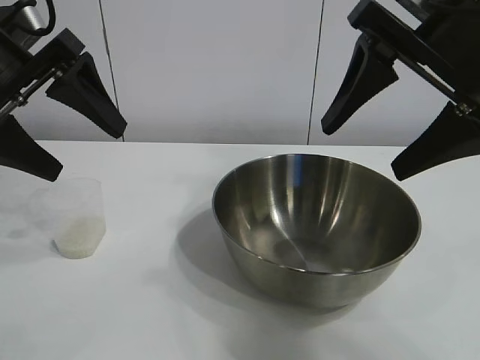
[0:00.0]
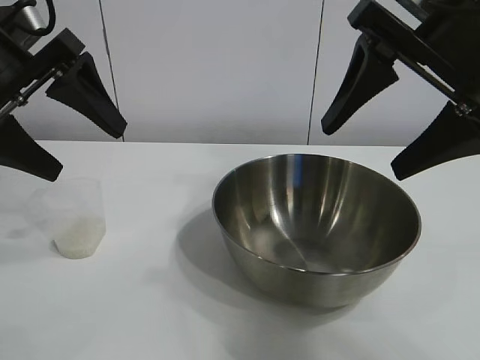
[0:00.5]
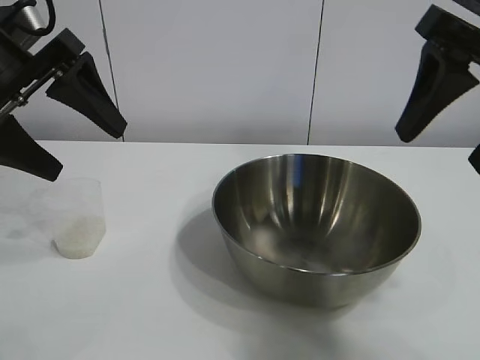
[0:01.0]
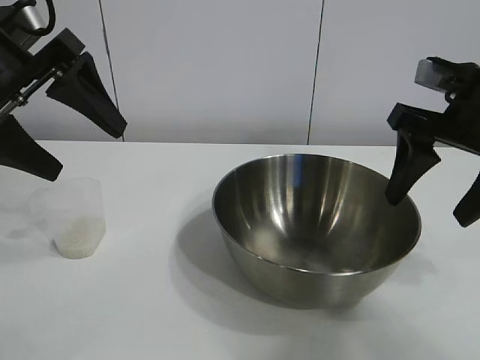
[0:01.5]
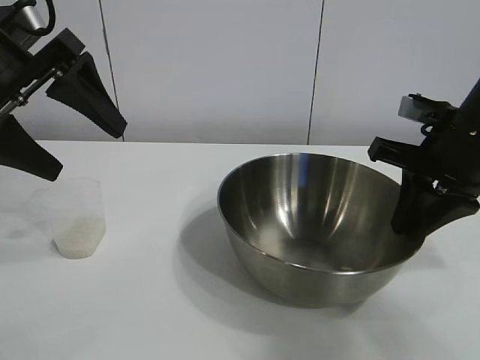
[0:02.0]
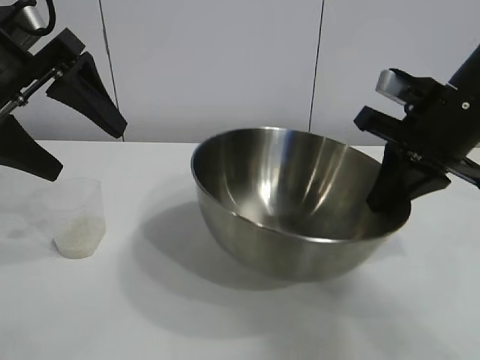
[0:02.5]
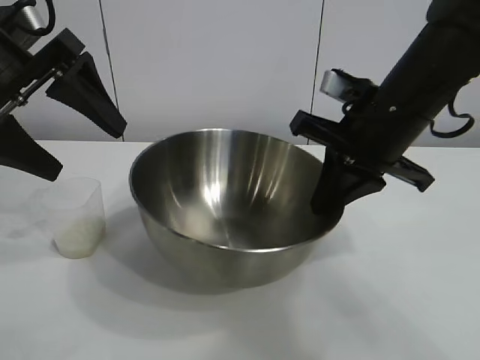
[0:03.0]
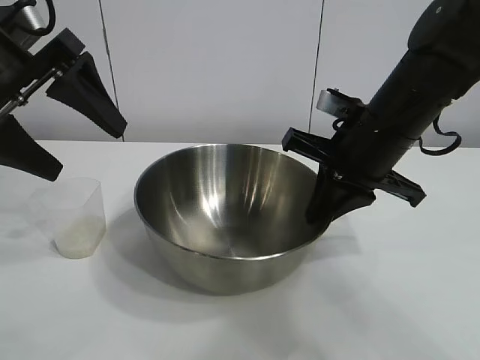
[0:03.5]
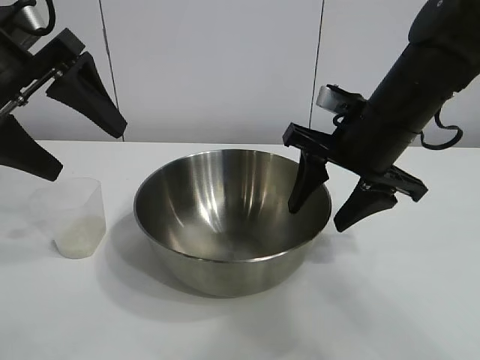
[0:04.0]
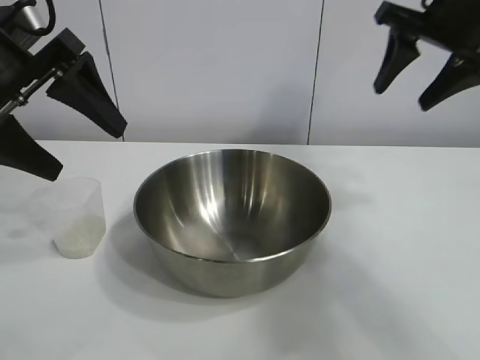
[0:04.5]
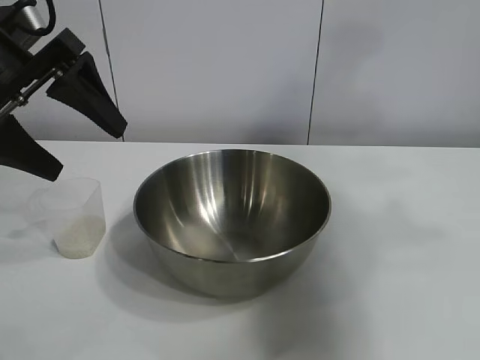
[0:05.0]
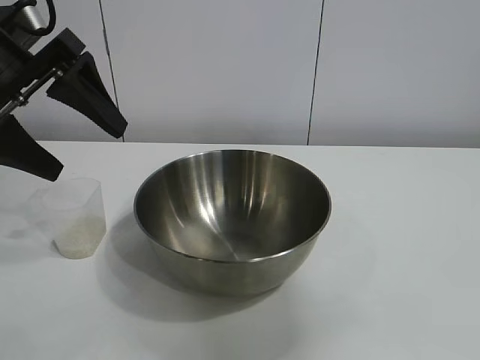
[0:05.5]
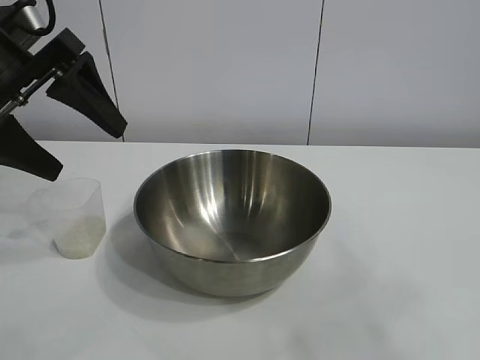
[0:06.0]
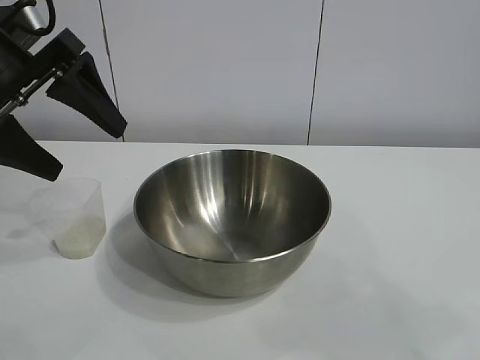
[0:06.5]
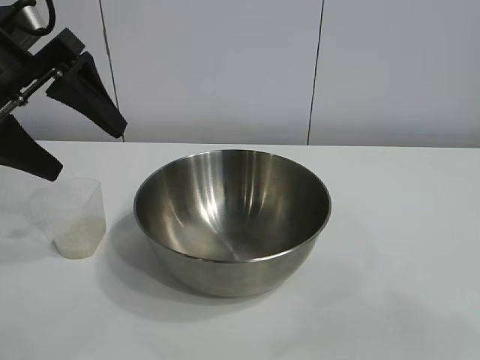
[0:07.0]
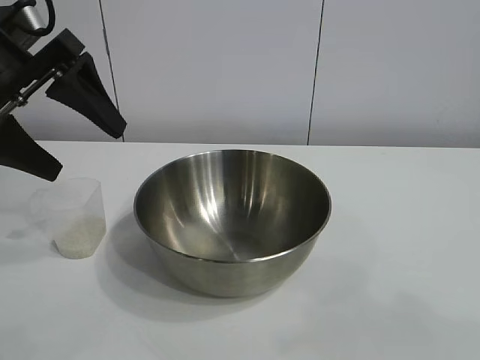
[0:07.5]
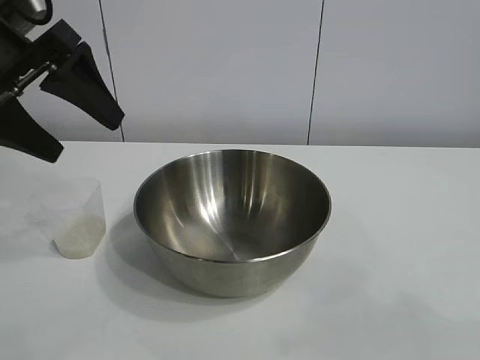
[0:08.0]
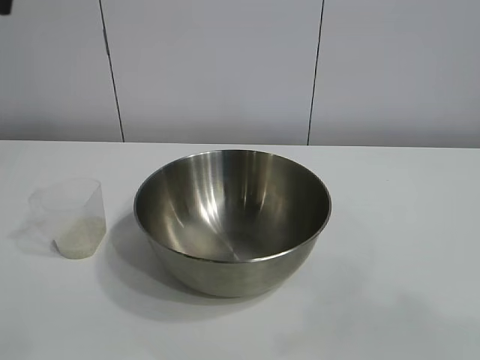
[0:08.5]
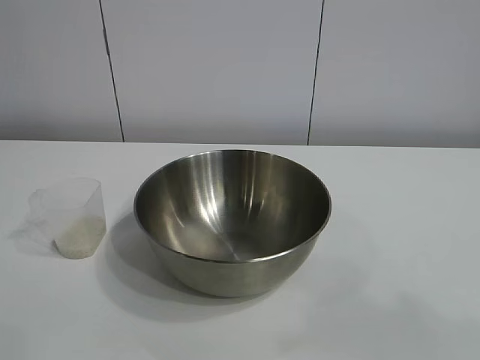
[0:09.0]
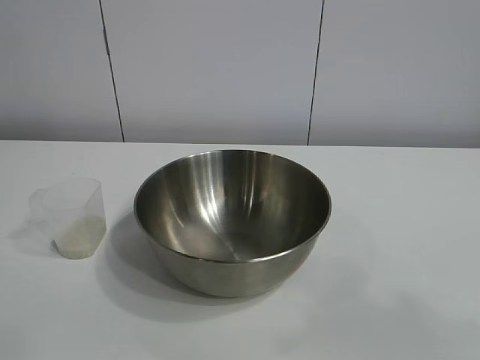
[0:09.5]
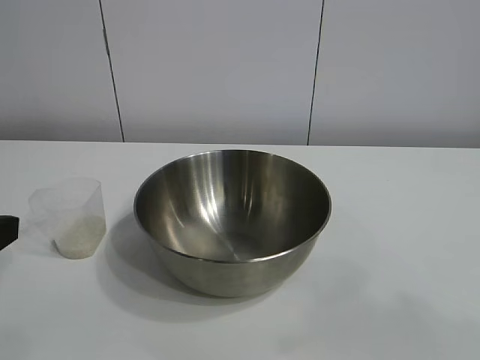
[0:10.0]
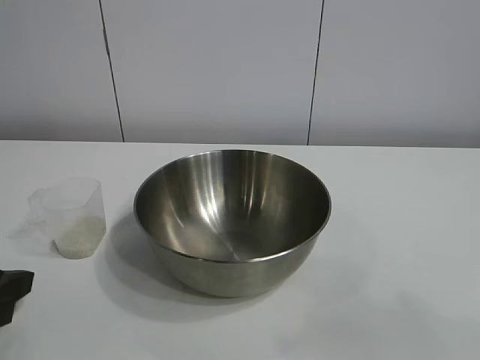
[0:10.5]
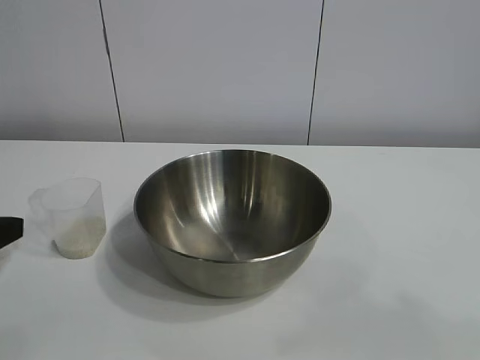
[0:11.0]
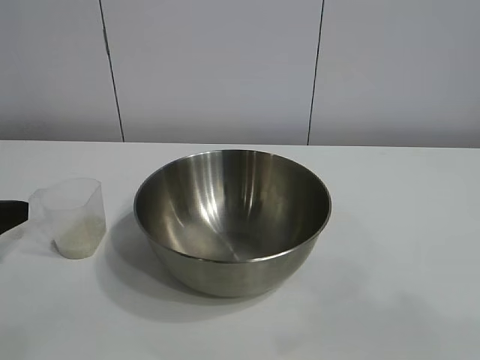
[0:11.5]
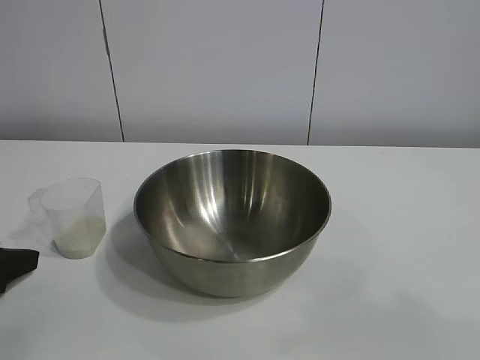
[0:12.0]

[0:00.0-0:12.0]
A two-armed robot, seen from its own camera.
Task of the whole recording: the right gripper grasp the rice container and place it in the center of the table, the left gripper grasp the rice scoop and pour the rice into the rice container.
Step, 0:01.0 to 0:03.5: Move the bowl in the center of view with right gripper.

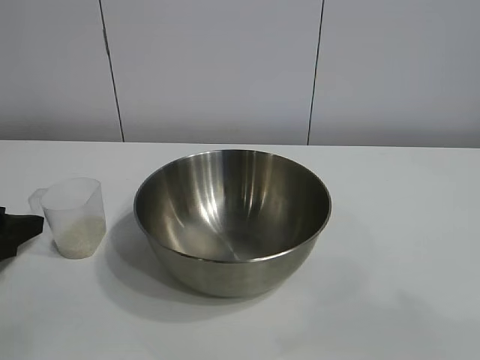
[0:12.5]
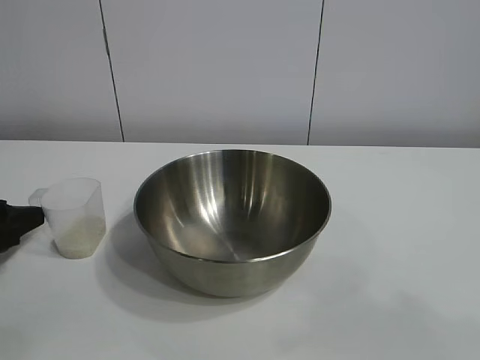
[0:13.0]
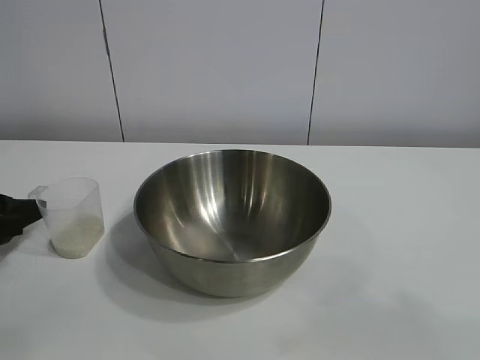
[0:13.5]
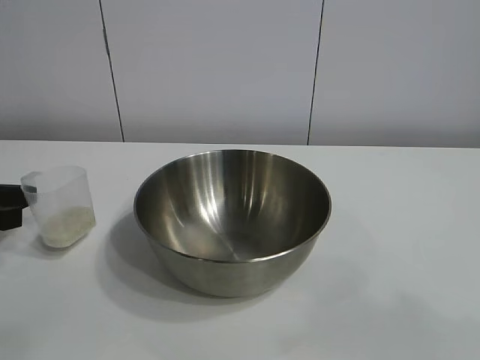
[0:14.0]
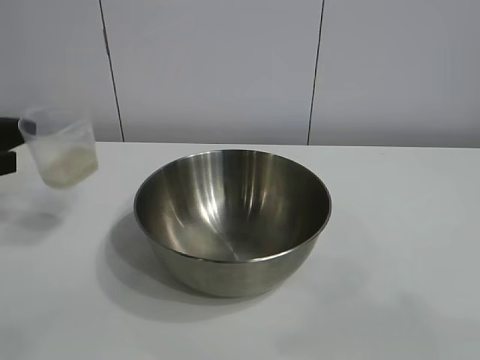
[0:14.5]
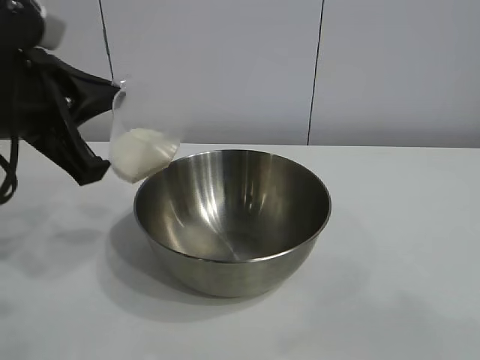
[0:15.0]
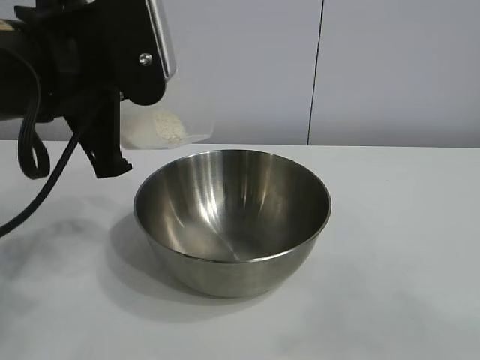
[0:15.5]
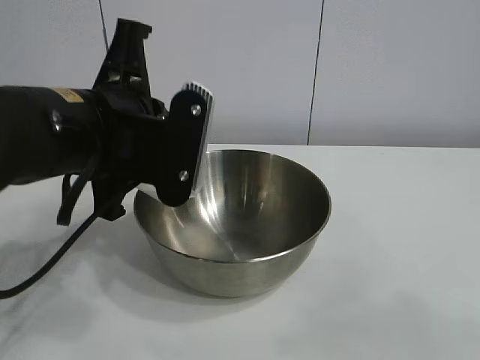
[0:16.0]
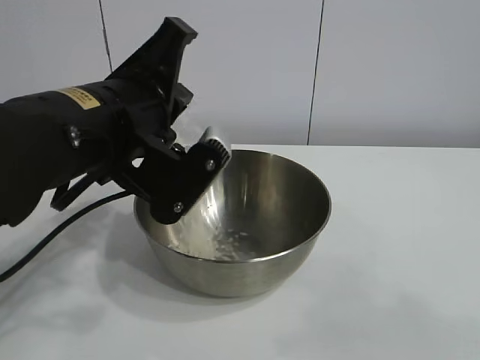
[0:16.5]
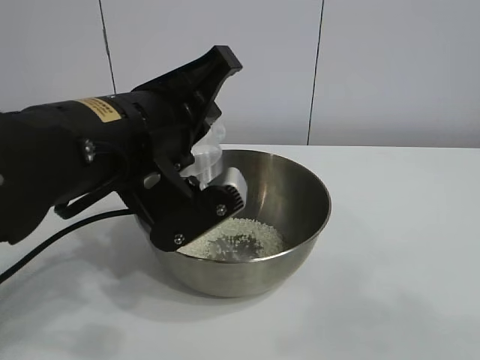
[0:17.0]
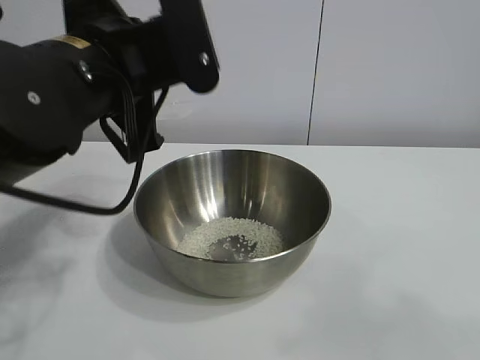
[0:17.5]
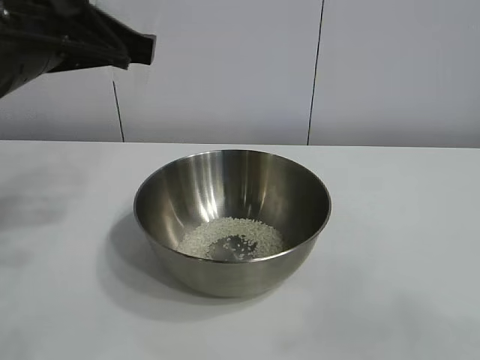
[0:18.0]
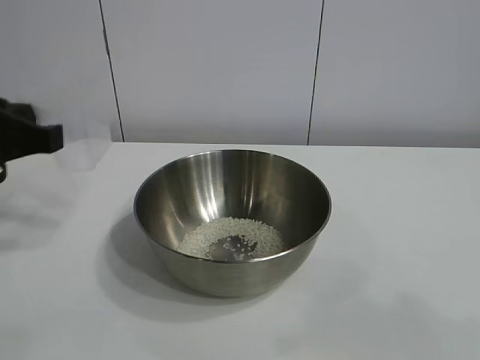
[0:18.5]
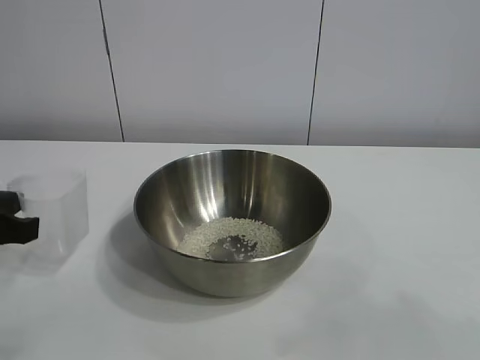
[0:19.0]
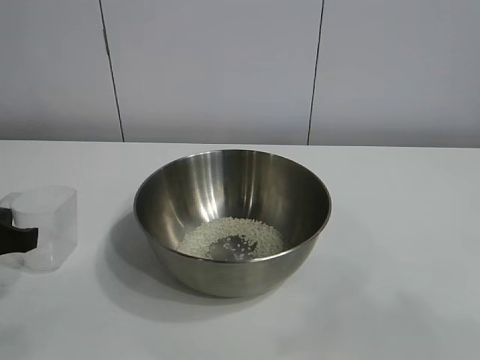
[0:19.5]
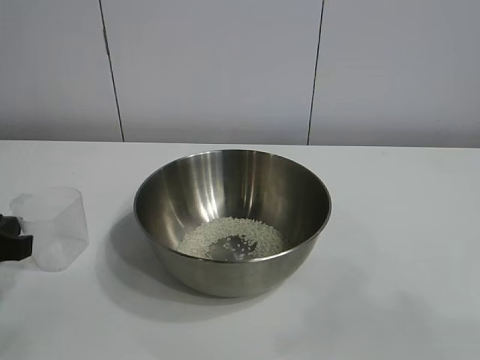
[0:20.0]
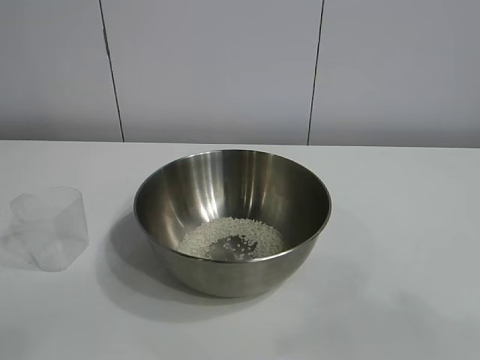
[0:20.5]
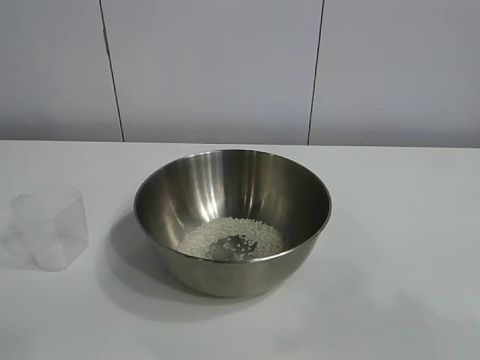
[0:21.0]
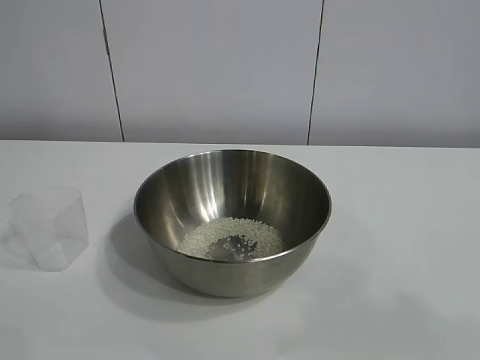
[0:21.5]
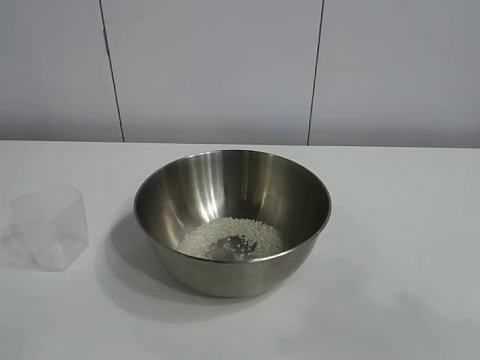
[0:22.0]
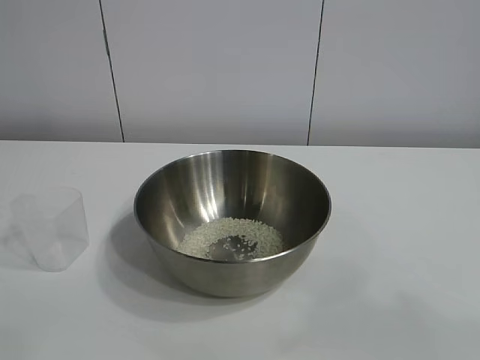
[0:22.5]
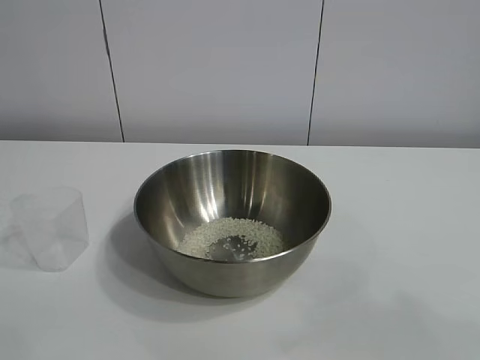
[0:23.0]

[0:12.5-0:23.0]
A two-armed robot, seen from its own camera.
Task of the whole recording: the right gripper grasp the rice container and place it in the center of the table, the left gripper grasp the rice scoop and pour the rice into the rice container.
Step, 0:14.0 to 0:17.0: Pour the rice from the cup into the bowl with the left gripper.
Step, 0:17.5 to 0:19.5: Place the cup on the table with the left gripper.
